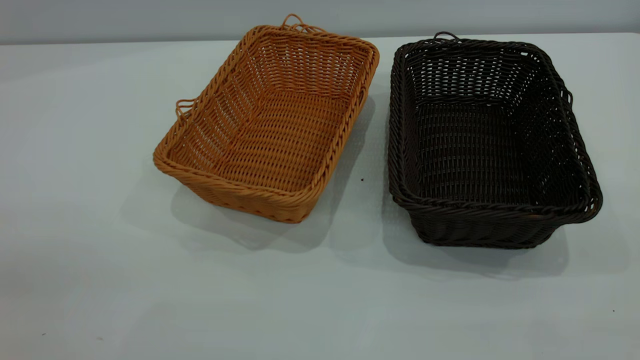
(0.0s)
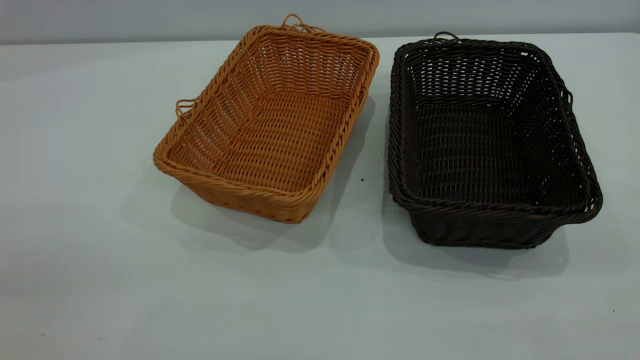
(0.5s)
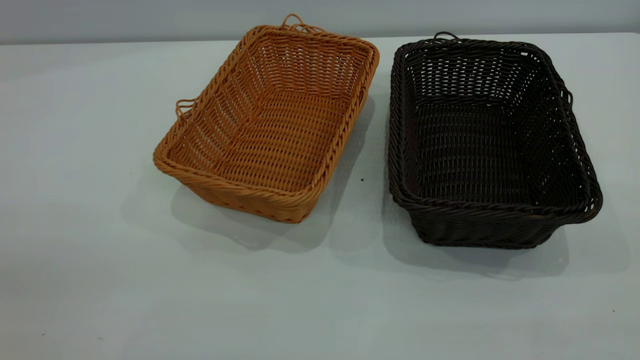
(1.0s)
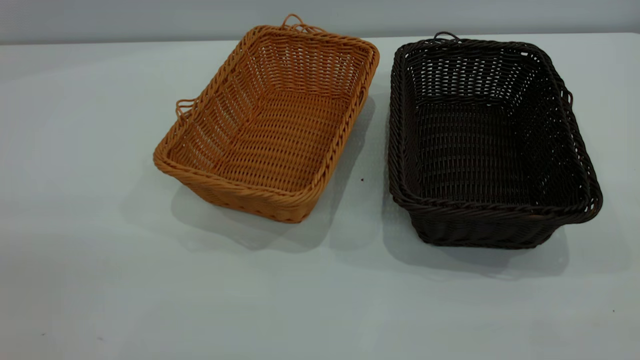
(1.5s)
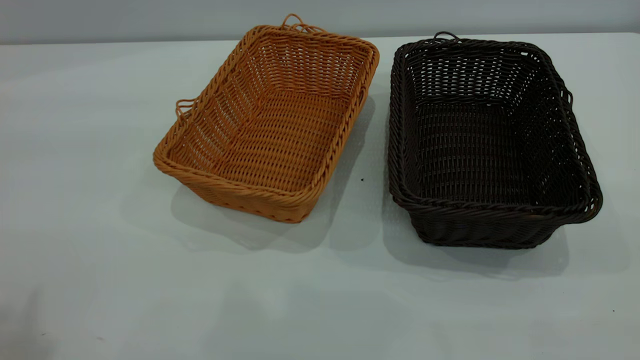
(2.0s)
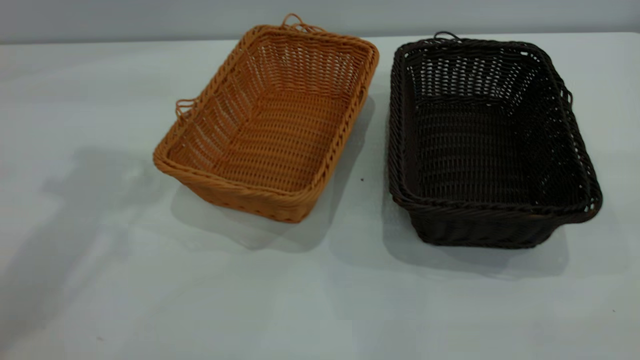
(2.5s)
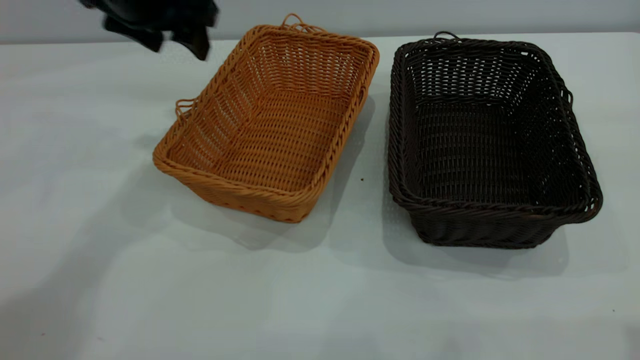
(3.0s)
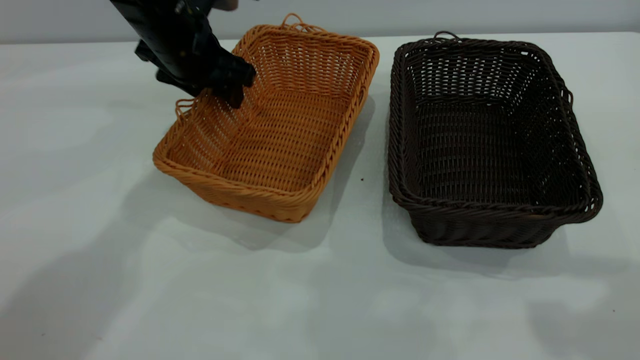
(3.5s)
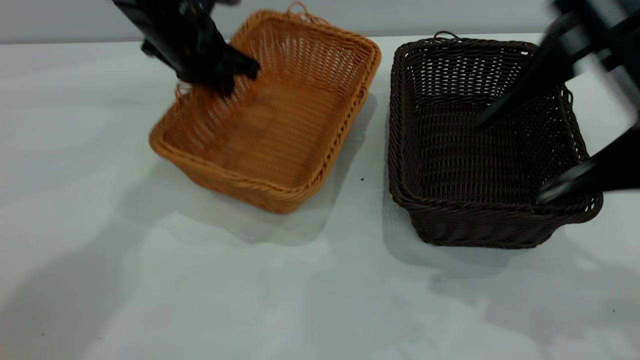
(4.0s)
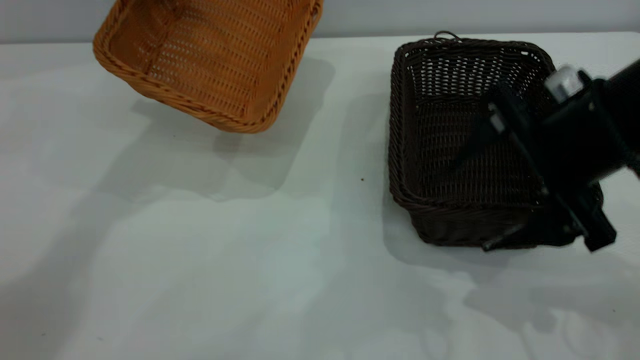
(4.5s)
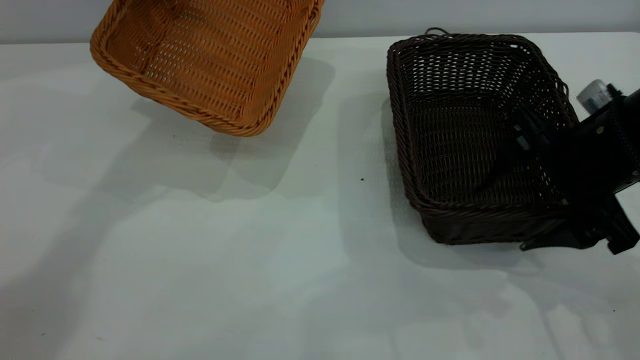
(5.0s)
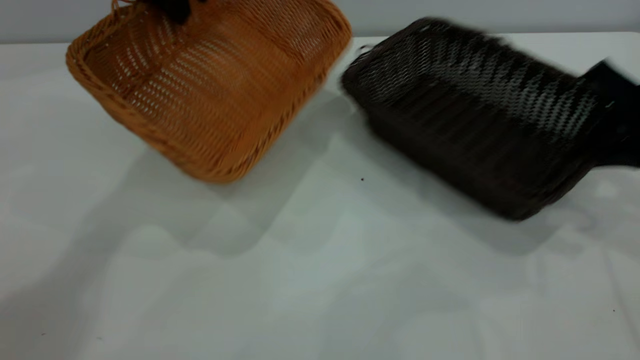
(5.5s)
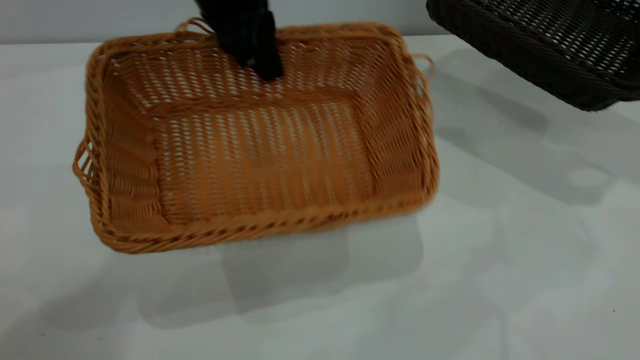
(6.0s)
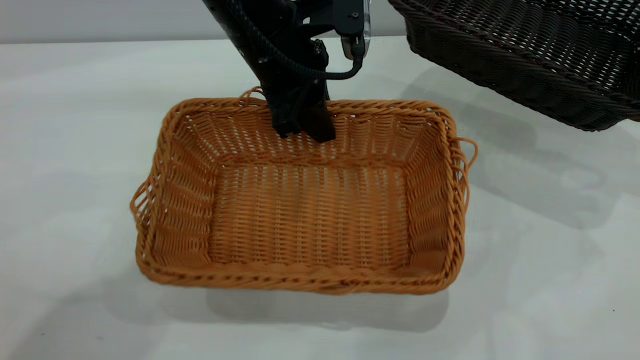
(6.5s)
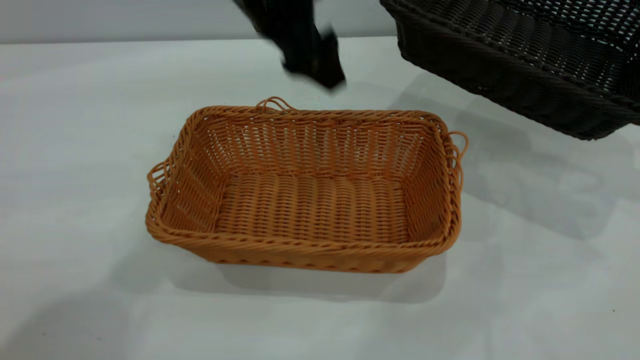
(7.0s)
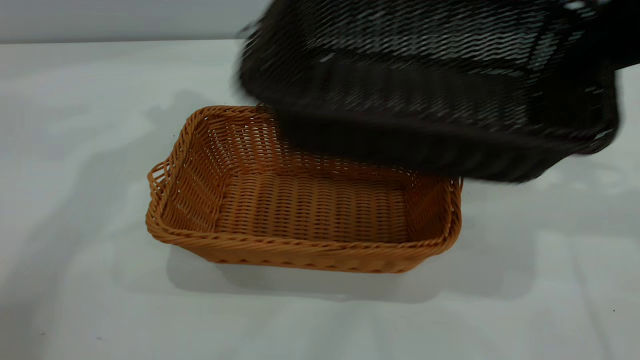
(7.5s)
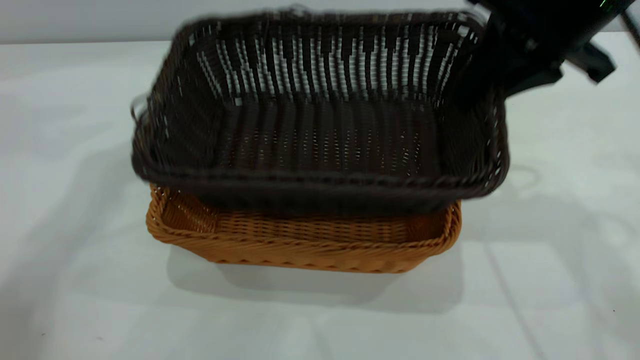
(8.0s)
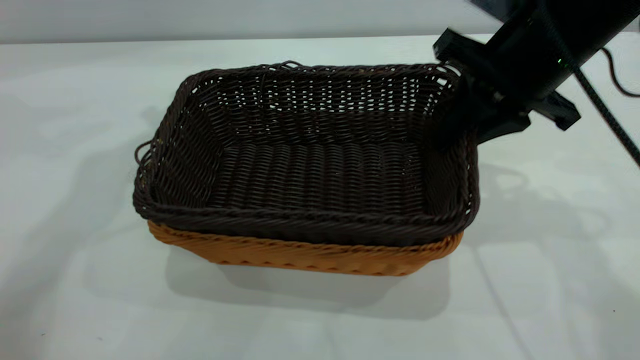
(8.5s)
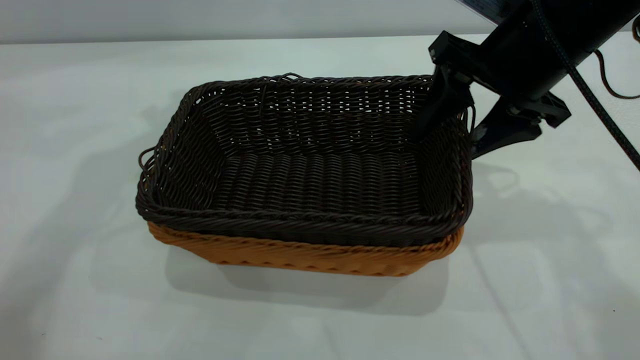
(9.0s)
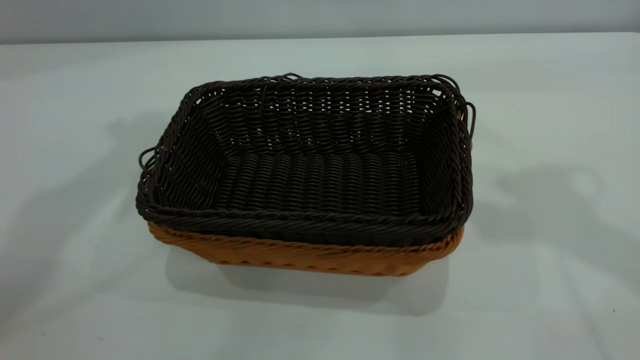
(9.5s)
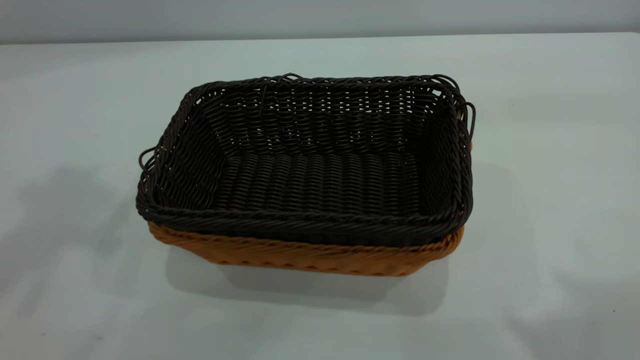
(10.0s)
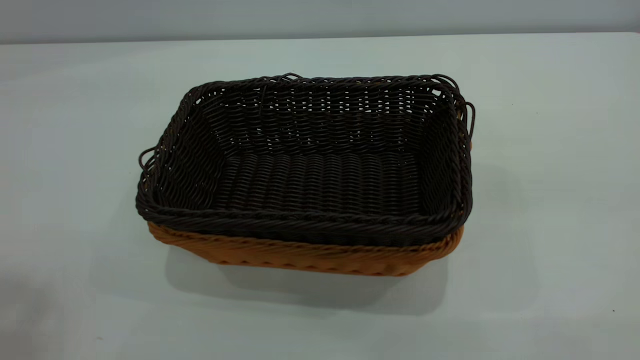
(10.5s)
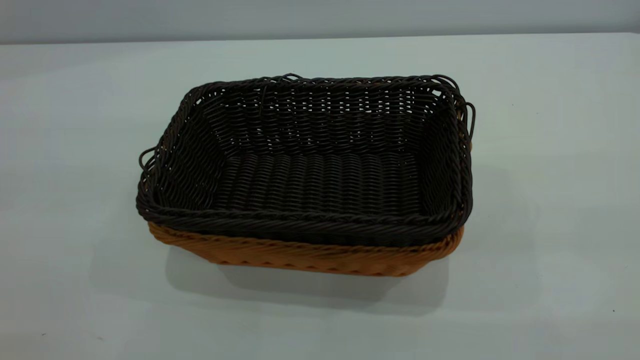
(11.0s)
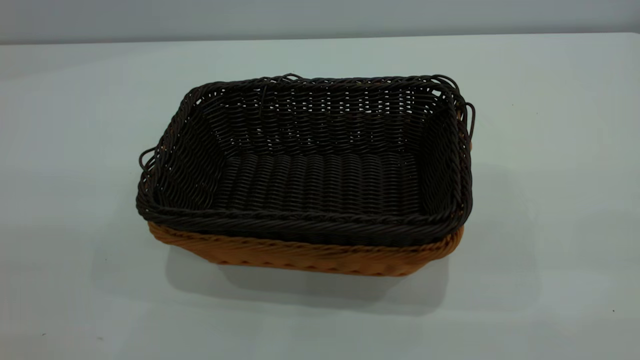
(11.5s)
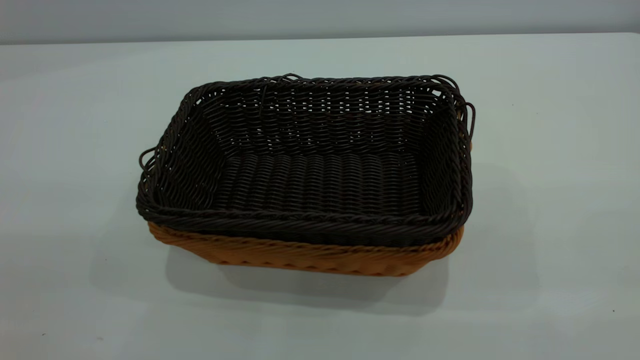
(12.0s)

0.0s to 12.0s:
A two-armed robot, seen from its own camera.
Task of the whole recording: the left gripper grasp the brown basket and place it in the center of the table, the right gripper grasp the black basket and place it inside the brown one.
Step, 0.0s to 5.5s: Pick up the light basket with the right gripper.
Step, 6.0s to 7.0s: Place the light-colored basket in the center.
Step, 7.5s to 9.0s: Place the dark basket on top of the light basket.
2.0s to 4.0s: The right gripper travels forward and downward by about 25 cm; the left gripper heads forward, downward and to the right, covering approximately 40 cm, and closes up.
4.0s to 6.0s: The left gripper travels to the right, upward and backward by about 10 cm. The right gripper is displaced to the right and forward by approximately 25 cm, and closes.
6.0s to 8.0s: The right gripper shifts approximately 20 cm to the left; the left gripper shifts about 15 cm to the left and upward, and opens up.
8.0s to 10.0s: Both grippers move upward and backward, approximately 30 cm. The right gripper opens its fingers.
